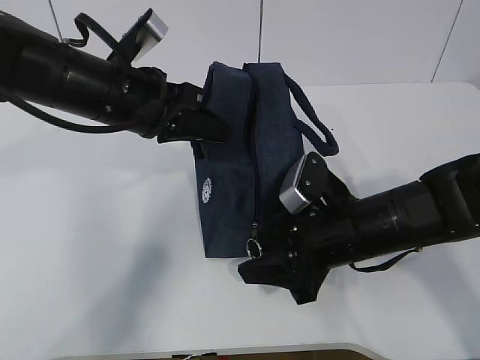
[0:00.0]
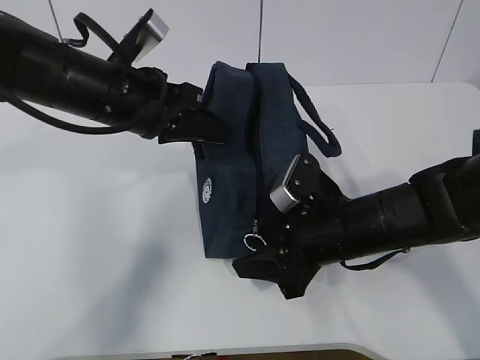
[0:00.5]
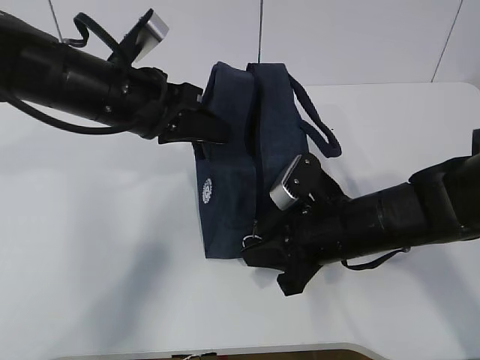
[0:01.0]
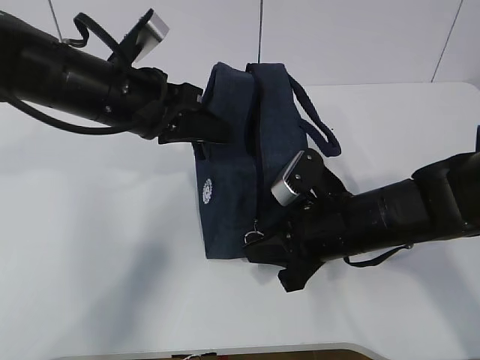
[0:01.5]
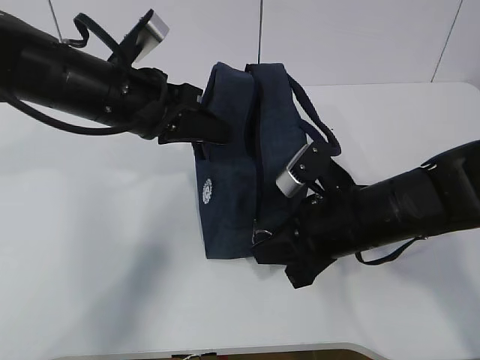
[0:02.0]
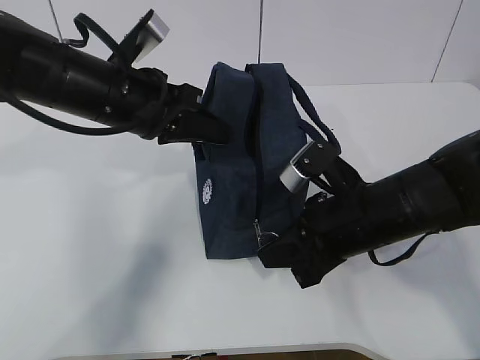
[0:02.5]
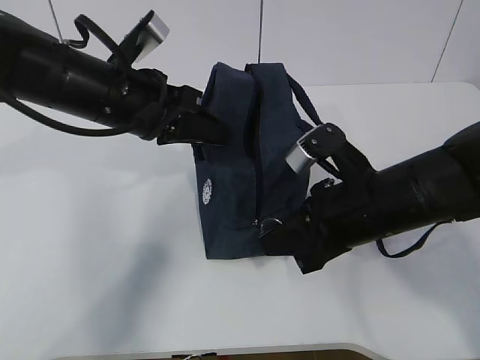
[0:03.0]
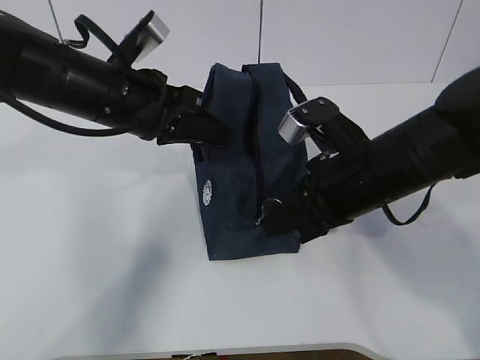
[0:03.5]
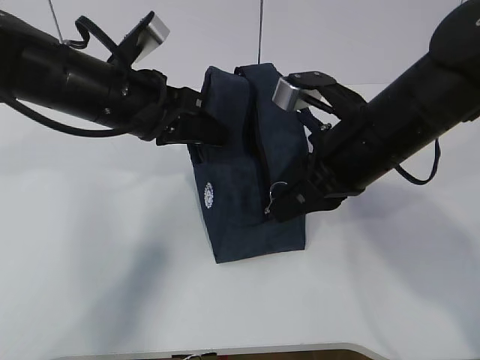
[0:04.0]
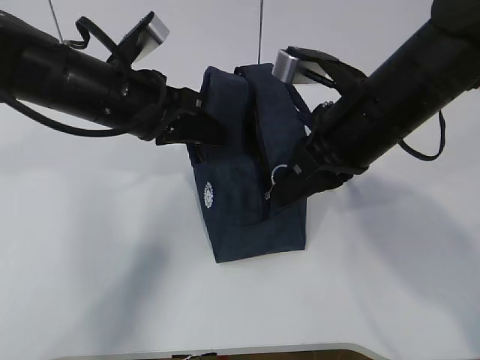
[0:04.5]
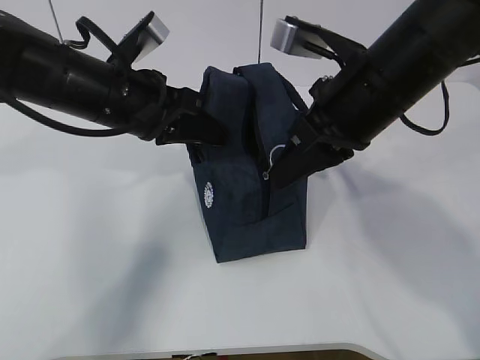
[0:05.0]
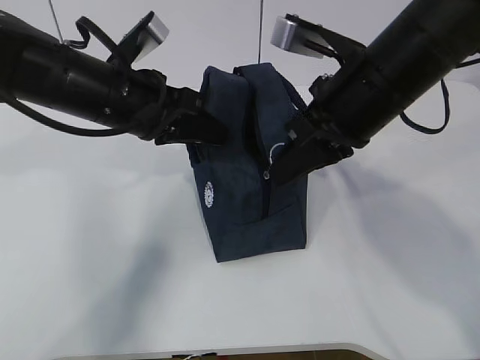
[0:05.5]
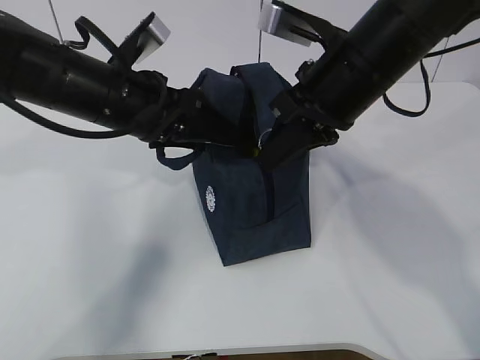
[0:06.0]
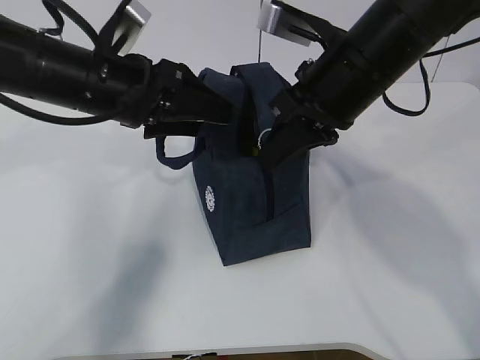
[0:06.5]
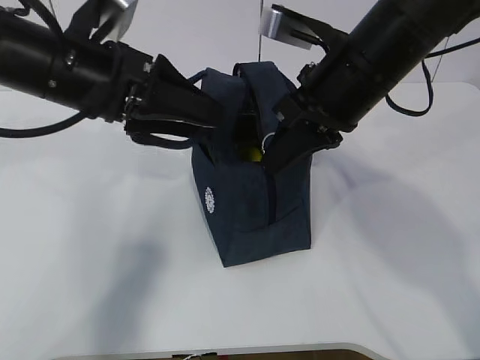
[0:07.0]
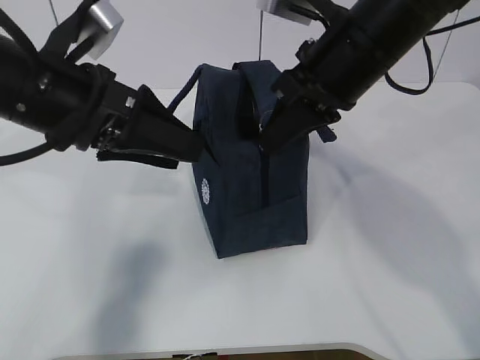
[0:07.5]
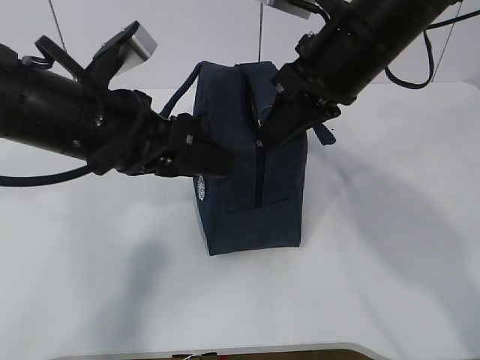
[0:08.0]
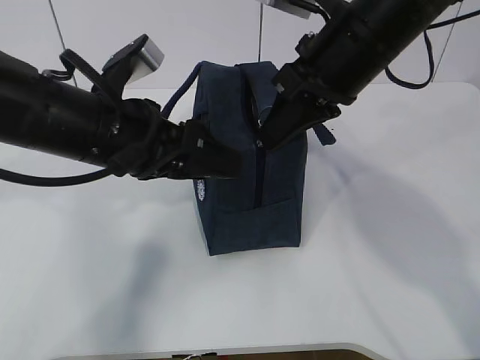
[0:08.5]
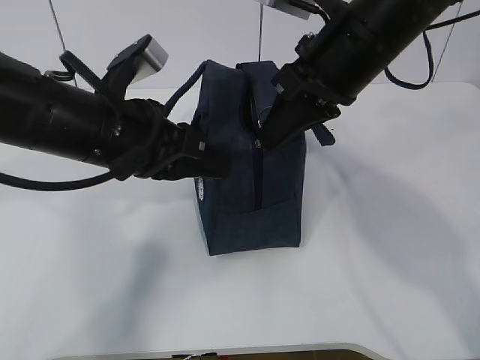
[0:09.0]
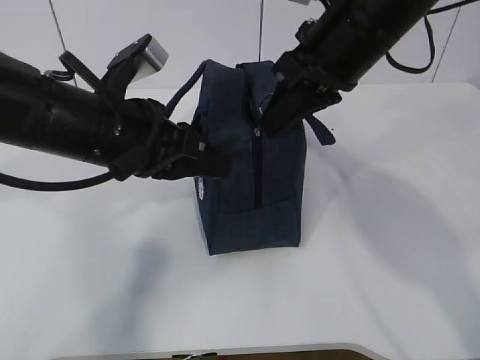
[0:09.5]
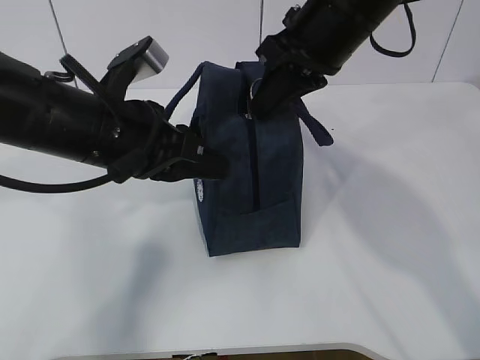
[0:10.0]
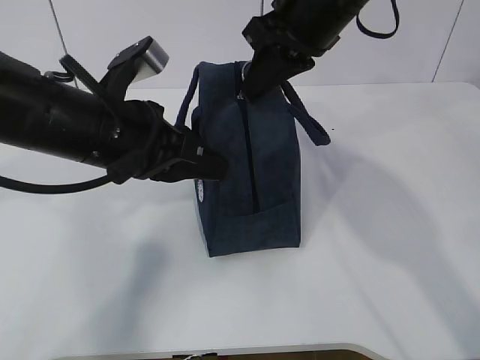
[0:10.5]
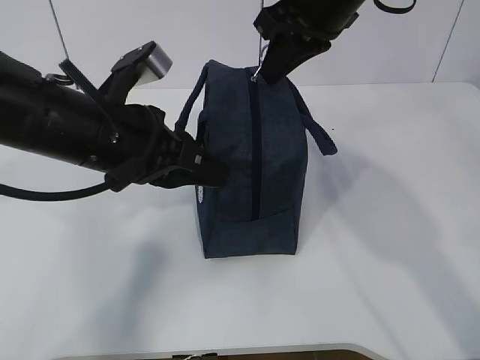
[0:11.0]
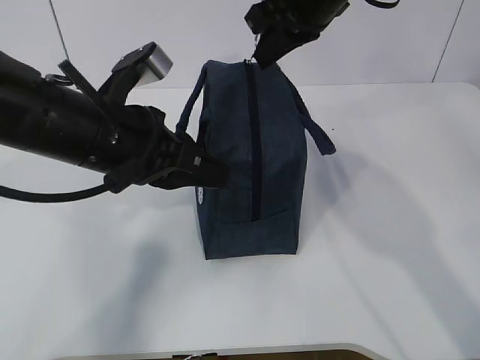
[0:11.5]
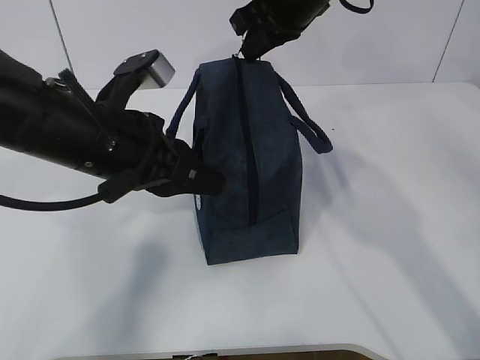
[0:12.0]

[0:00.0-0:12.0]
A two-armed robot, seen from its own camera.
Step, 0:00.0 to 0:09.0: Grab the lunch bag with your left hand.
0:00.0 to 0:02.0: The right gripper closes.
0:02.0 to 0:04.0: The right gripper moves upward, roughly 10 cm.
0:04.0 to 0:06.0: The right gripper is displaced upward by approximately 5 cm; the left gripper opens up.
0:06.0 to 0:08.0: The left gripper travels backward by some 5 cm.
0:08.0 to 0:10.0: The left gripper closes.
0:10.0 to 0:12.0: The right gripper goes some 10 cm forward.

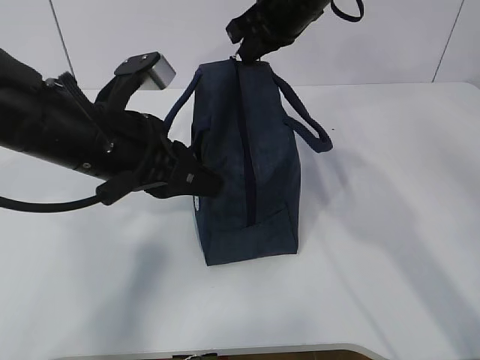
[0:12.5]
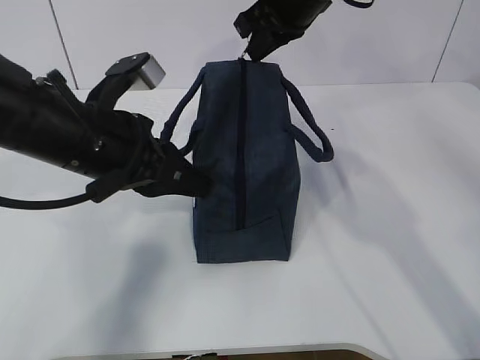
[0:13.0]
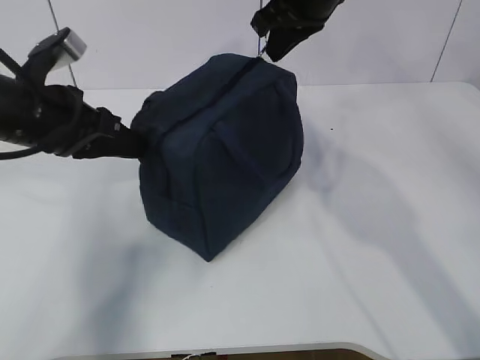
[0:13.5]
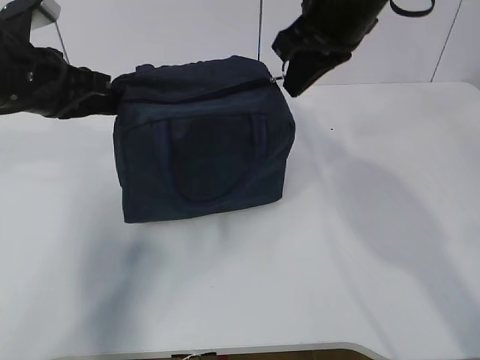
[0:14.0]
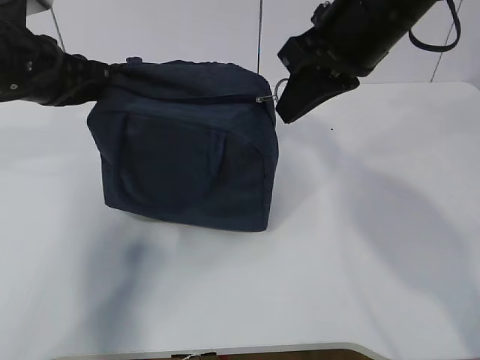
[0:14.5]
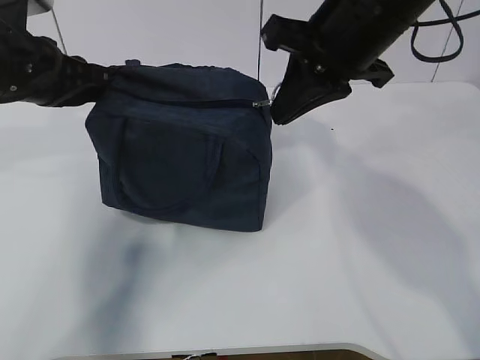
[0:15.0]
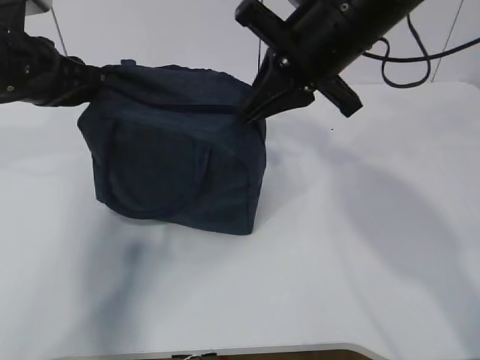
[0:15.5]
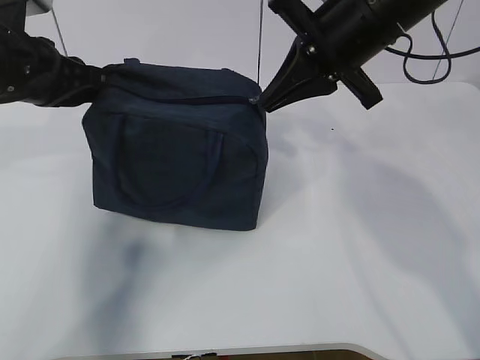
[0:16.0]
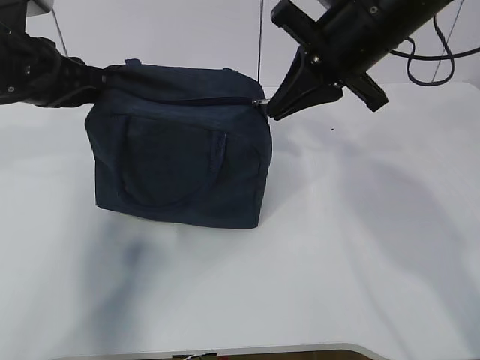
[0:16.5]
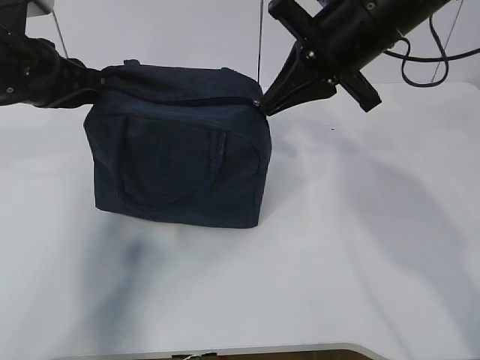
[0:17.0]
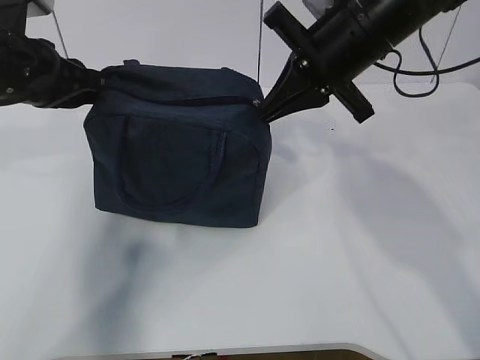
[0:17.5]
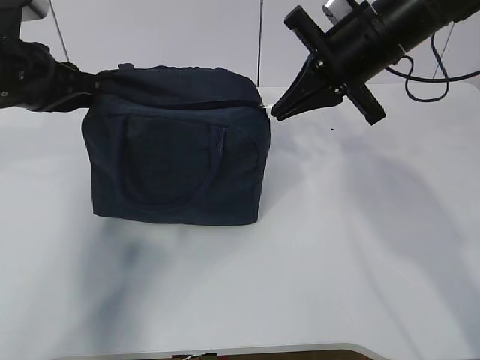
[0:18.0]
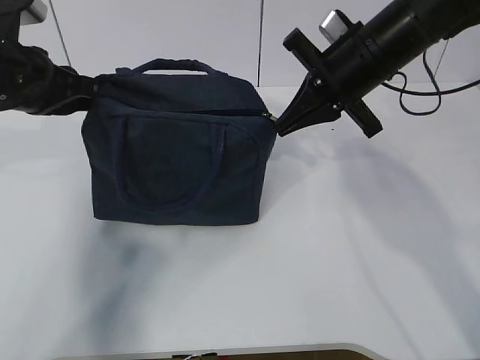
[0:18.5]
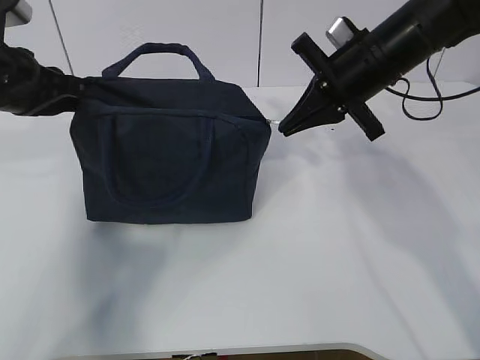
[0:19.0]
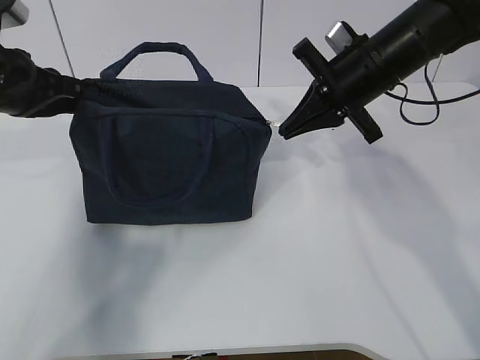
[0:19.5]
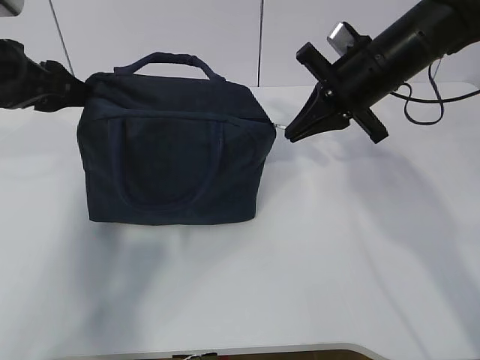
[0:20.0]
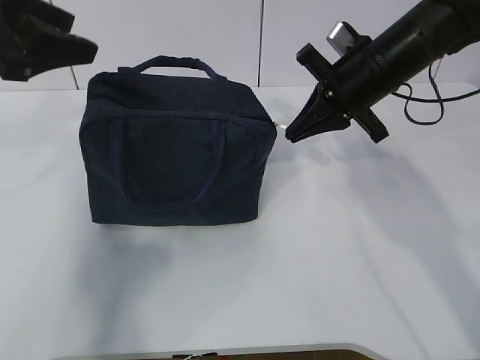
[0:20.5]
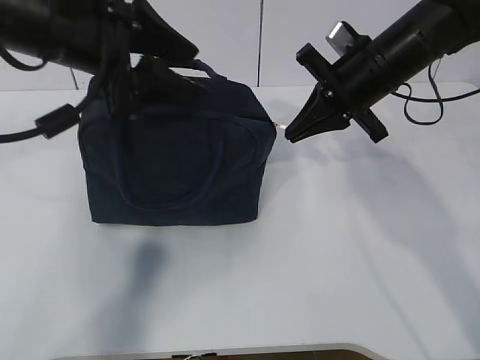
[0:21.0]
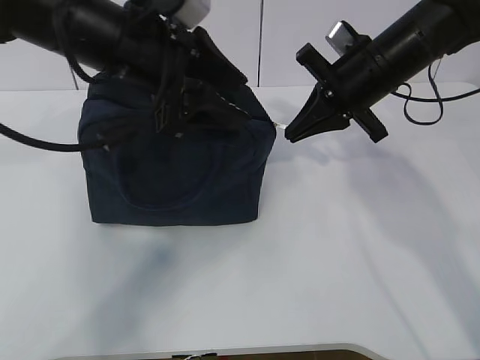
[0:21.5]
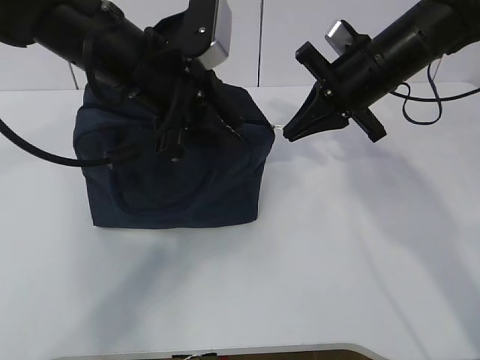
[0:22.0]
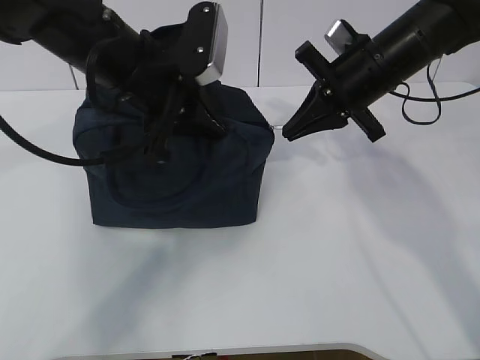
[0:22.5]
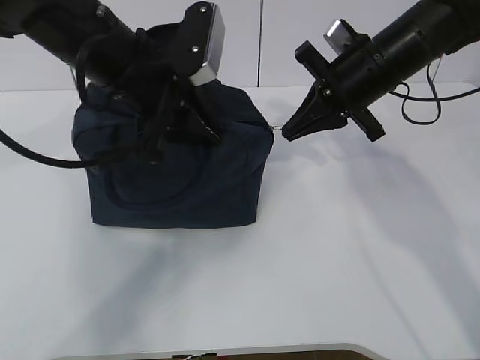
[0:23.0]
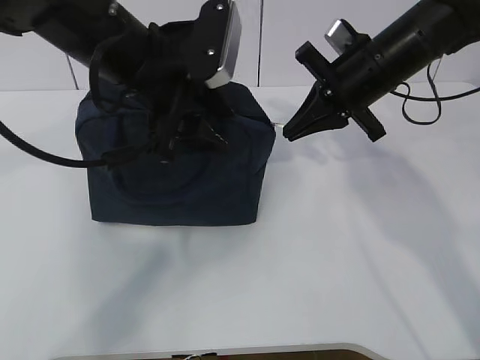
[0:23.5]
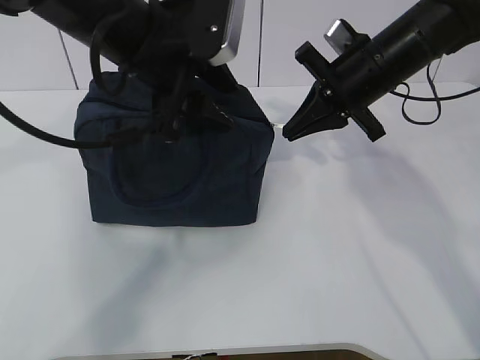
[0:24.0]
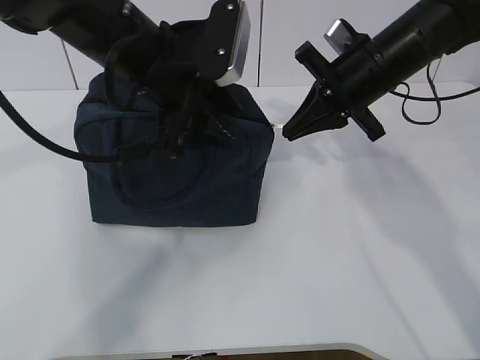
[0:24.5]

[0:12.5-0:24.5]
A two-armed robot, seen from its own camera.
Step, 0:12.5 to 0:15.0: Pull the zipper with your right hand.
0:12.5 to 0:14.5: The left gripper heads to the left and forward, covering approximately 15 cm; the right gripper travels backward by about 15 cm.
0:16.5 to 0:18.5: The right gripper ends up roughly 5 cm from where it was.
0:18.5 to 0:20.5: The left gripper moves upward, approximately 10 cm, and opens.
0:20.5 to 0:22.5: The left gripper is displaced to the right and downward by roughly 15 cm, and closes its fingers.
0:22.5 to 0:24.5: The left gripper opens.

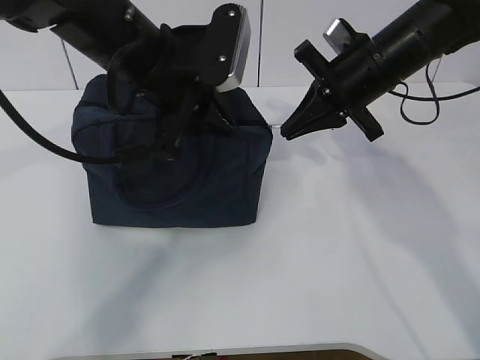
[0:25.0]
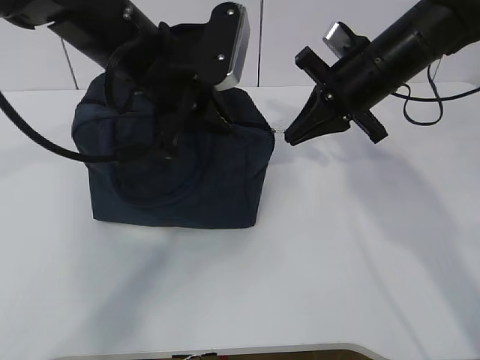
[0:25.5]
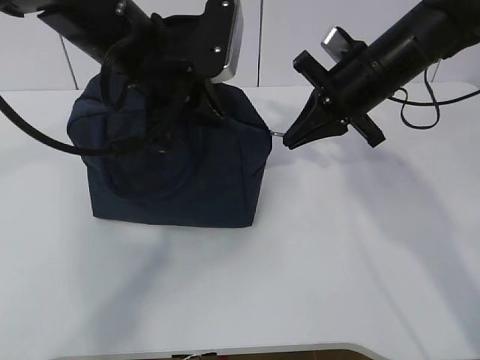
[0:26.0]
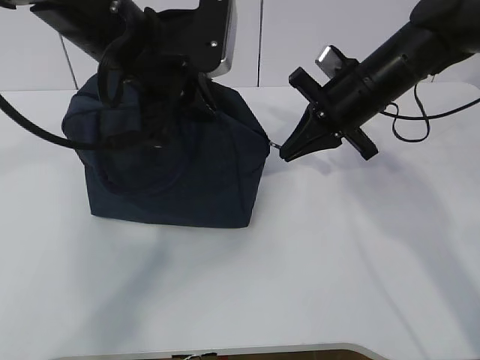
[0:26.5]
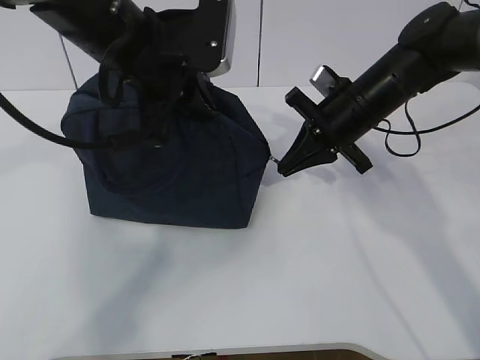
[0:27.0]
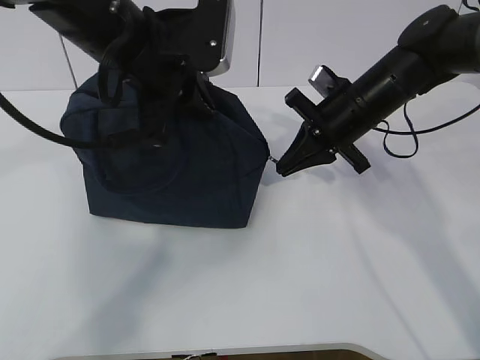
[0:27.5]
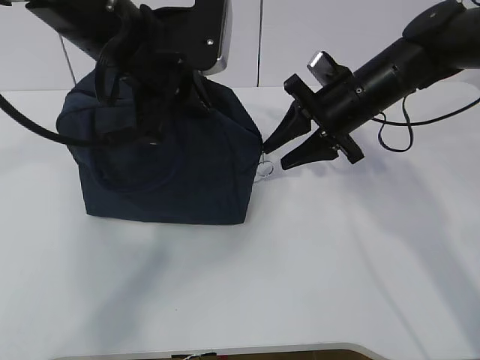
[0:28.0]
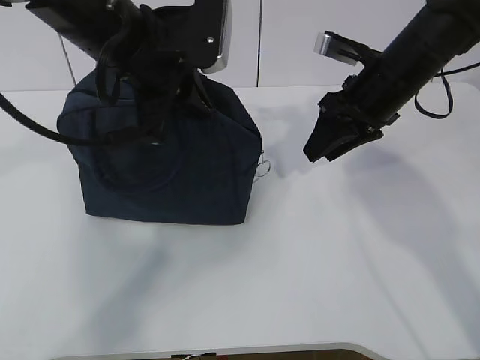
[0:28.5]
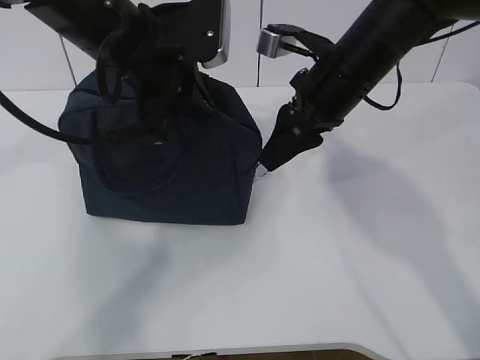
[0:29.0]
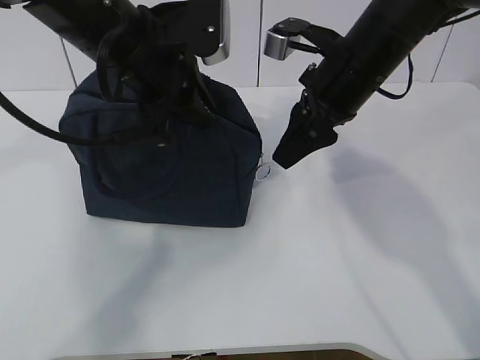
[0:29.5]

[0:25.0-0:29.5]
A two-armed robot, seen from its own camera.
0:25.0 to 0:27.0: The right gripper moves downward, some 5 cm.
0:27.0 to 0:29.5: The right gripper moves upward, some 5 cm, and opens its fingers.
